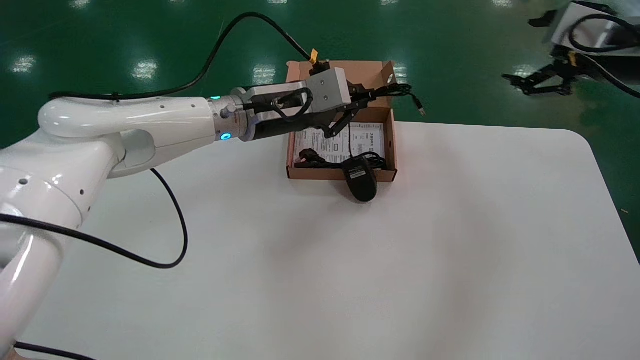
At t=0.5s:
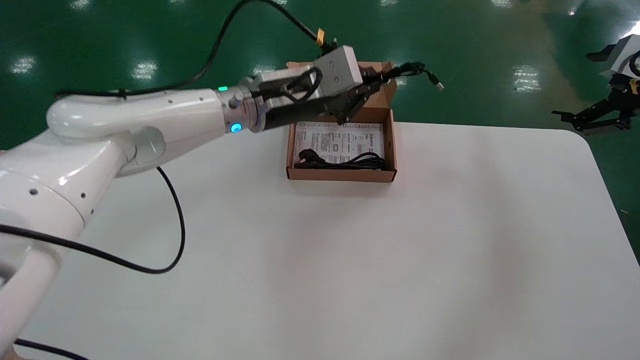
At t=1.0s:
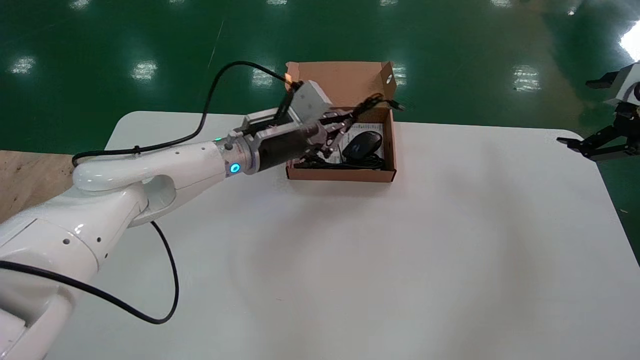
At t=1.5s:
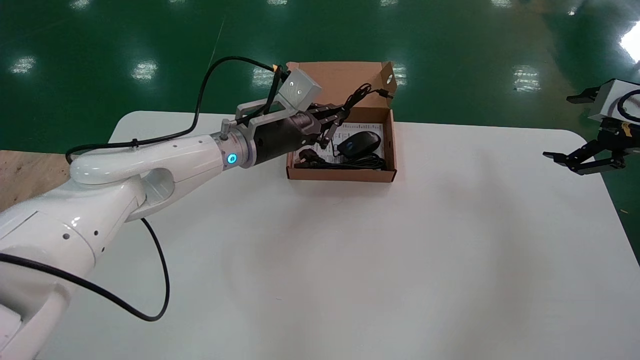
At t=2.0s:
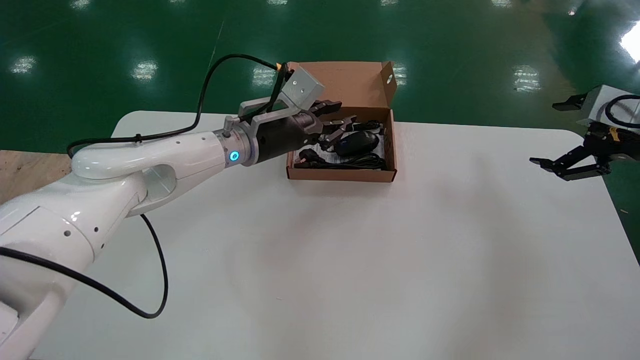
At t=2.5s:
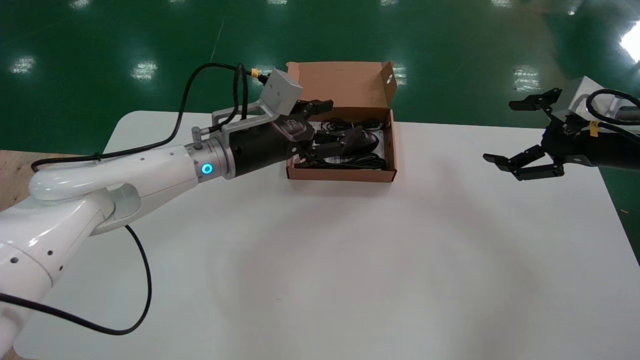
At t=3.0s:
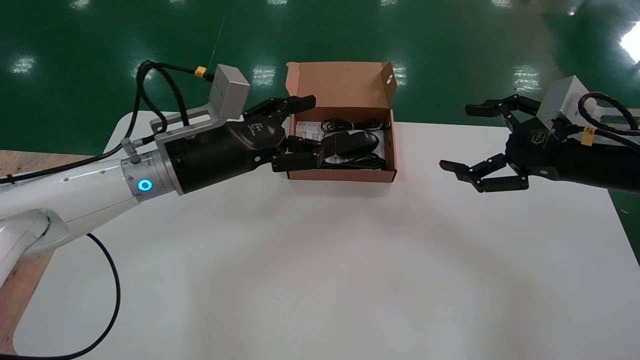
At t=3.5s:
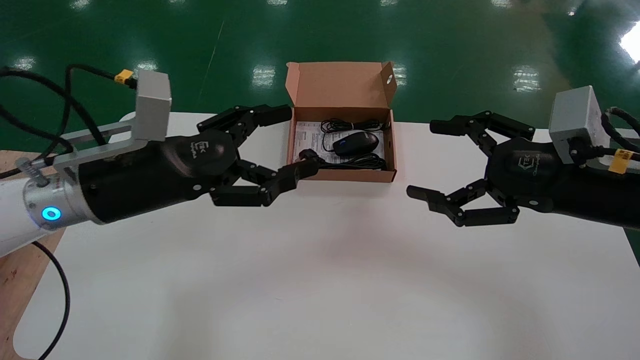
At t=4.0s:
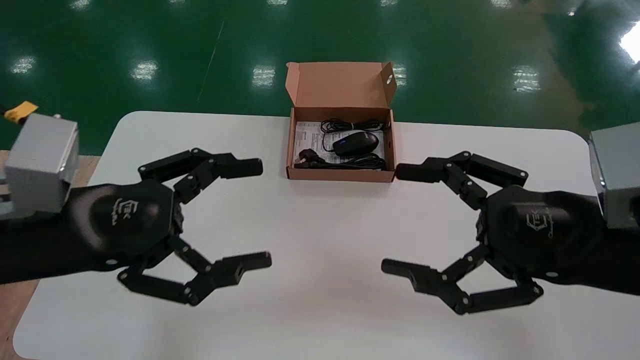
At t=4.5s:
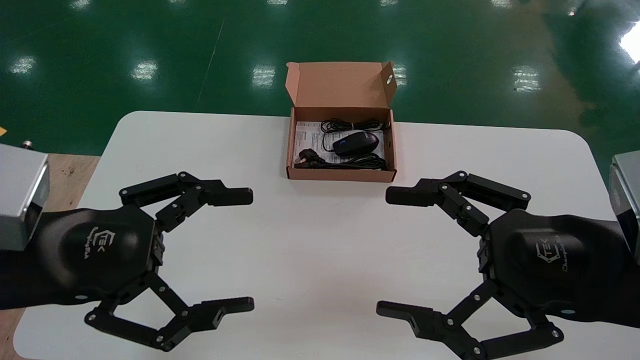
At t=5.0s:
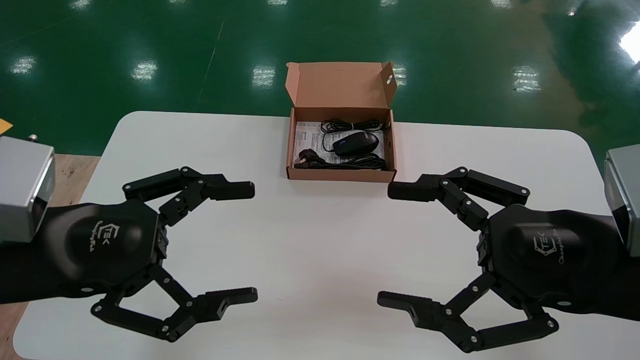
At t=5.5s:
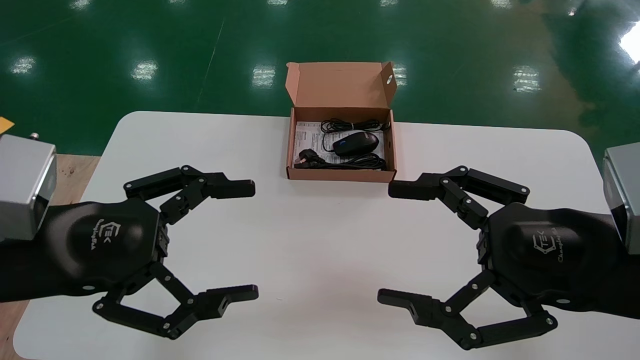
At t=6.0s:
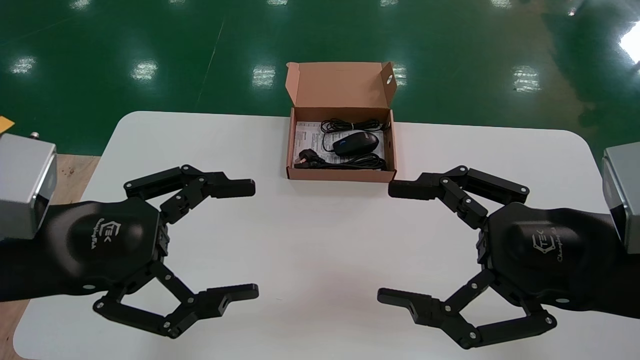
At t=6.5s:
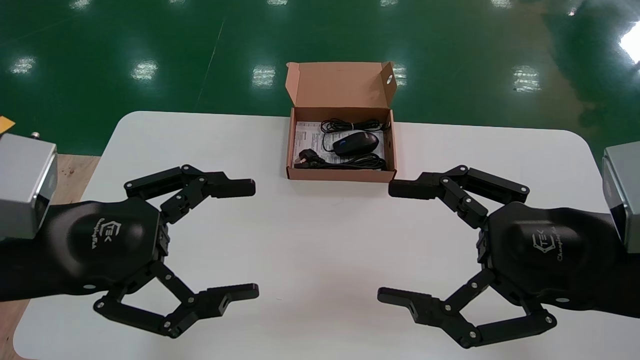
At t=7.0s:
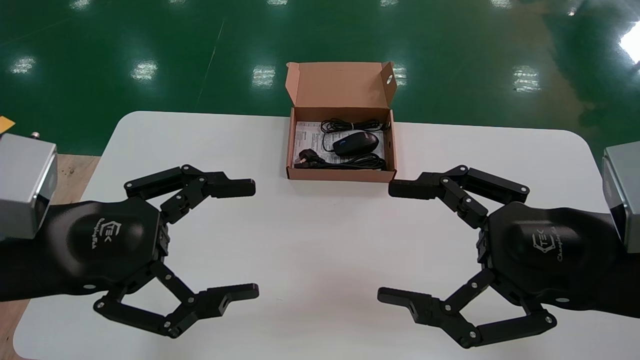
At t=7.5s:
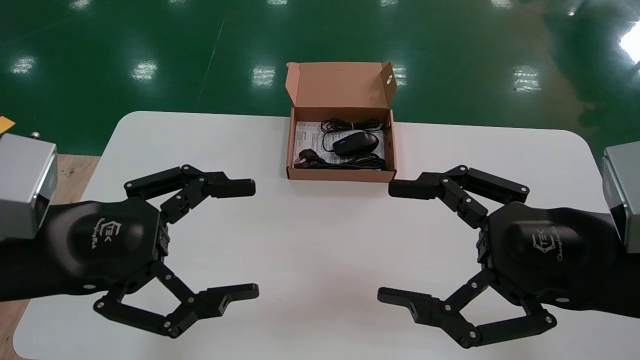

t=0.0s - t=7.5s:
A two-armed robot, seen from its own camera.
Step, t=0.0s - t=2.5s: Place the mouse and power cord into the box.
t=0.0s - t=2.0s: The right gripper is displaced downward and to the right by roughly 10 cm; the left gripper is displaced downward by roughly 10 cm.
t=2.0s - t=4.0s: The right gripper moves to the left and backward, approximately 25 cm. Meanwhile the left gripper is displaced backward and to the left by approximately 30 cm, and opens.
t=5.5s - t=7.5s: The two grippers keep their place.
